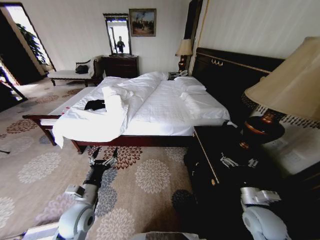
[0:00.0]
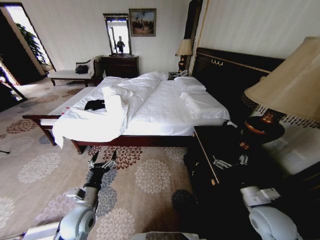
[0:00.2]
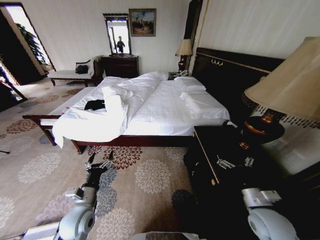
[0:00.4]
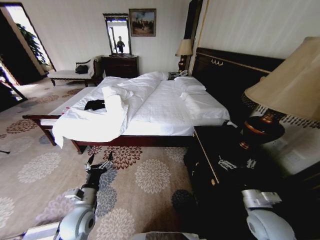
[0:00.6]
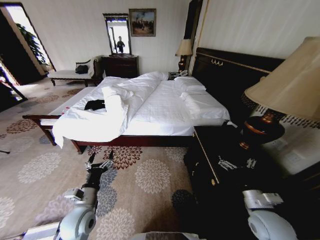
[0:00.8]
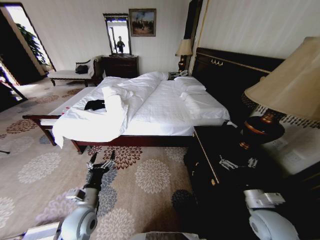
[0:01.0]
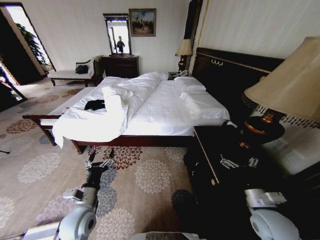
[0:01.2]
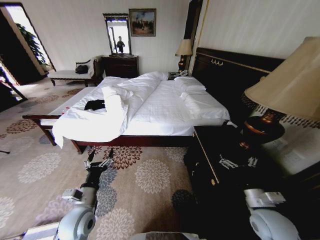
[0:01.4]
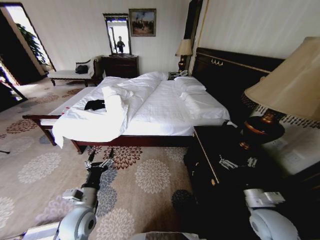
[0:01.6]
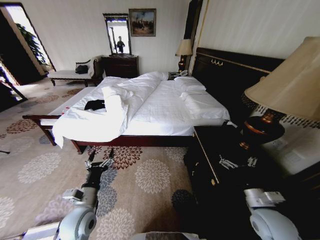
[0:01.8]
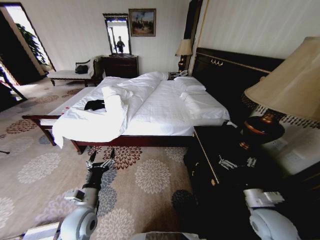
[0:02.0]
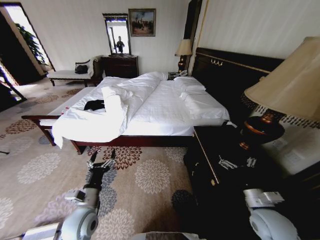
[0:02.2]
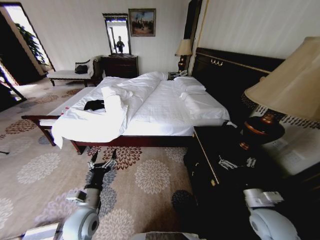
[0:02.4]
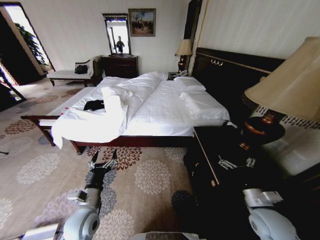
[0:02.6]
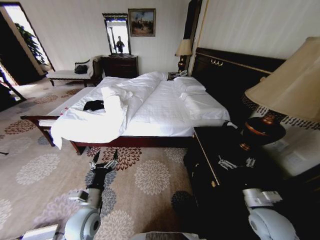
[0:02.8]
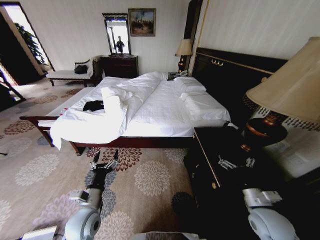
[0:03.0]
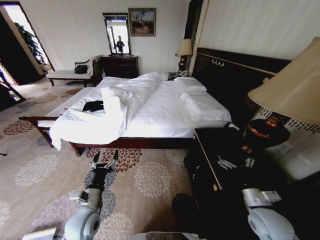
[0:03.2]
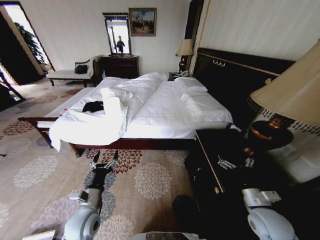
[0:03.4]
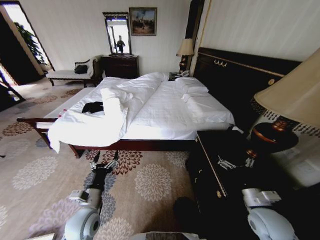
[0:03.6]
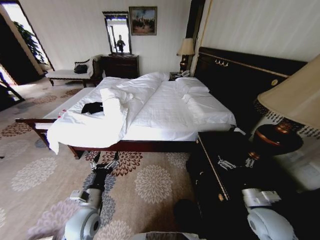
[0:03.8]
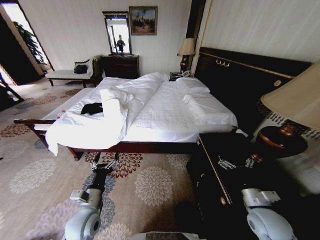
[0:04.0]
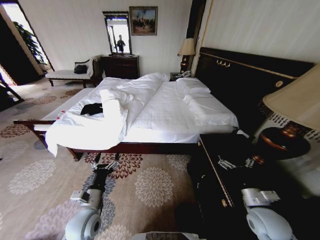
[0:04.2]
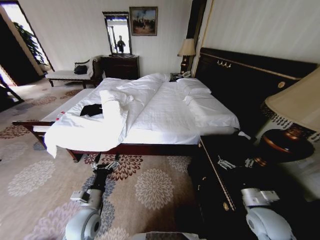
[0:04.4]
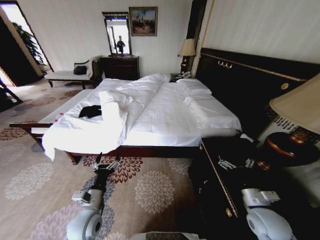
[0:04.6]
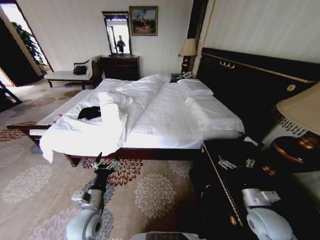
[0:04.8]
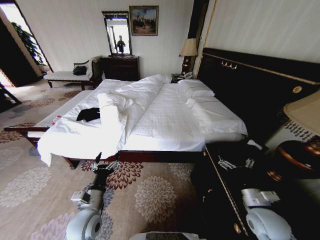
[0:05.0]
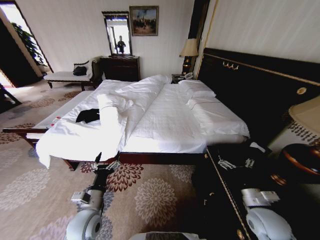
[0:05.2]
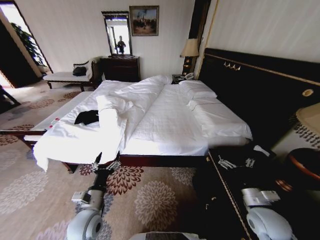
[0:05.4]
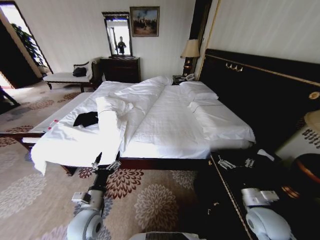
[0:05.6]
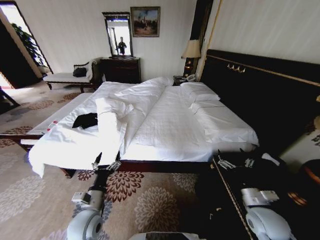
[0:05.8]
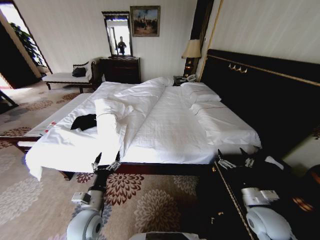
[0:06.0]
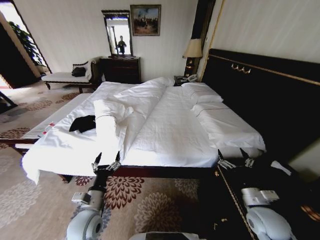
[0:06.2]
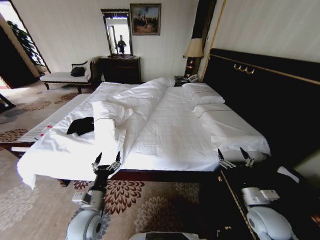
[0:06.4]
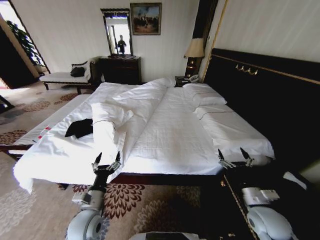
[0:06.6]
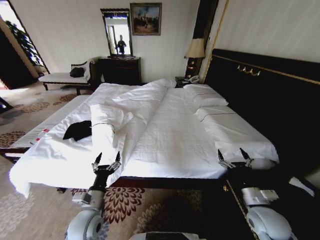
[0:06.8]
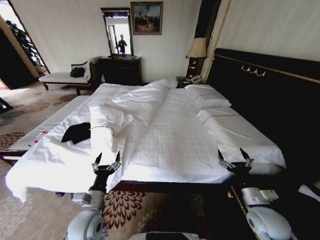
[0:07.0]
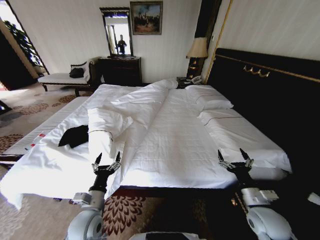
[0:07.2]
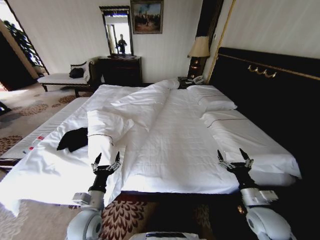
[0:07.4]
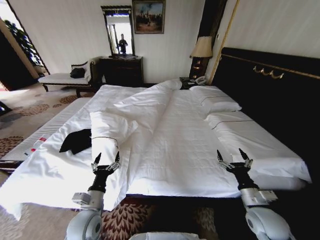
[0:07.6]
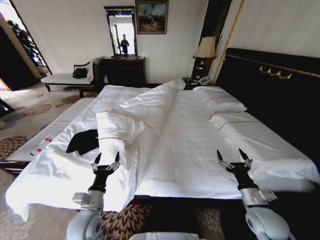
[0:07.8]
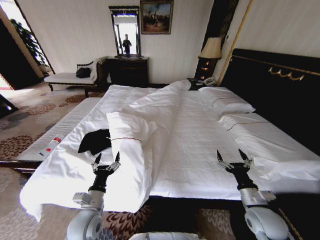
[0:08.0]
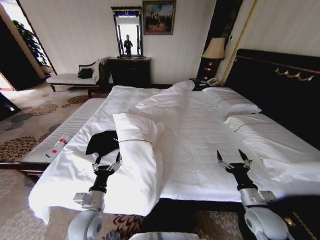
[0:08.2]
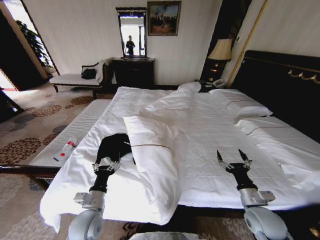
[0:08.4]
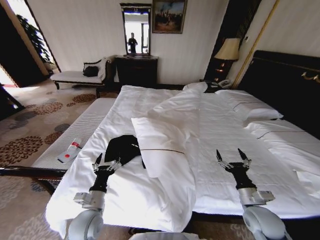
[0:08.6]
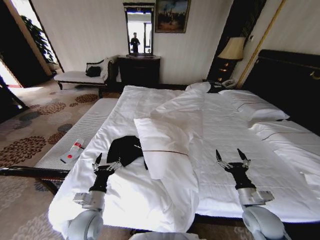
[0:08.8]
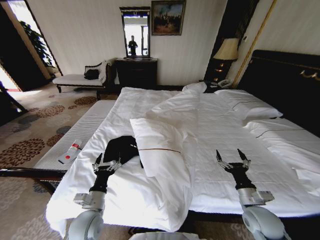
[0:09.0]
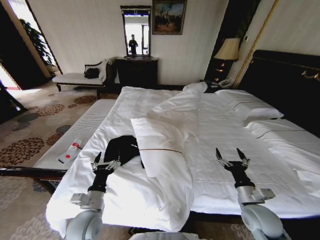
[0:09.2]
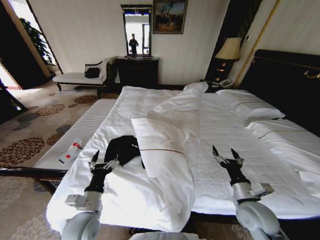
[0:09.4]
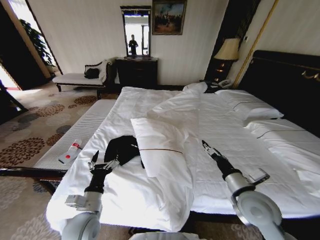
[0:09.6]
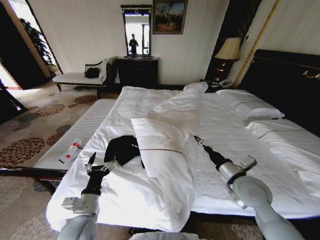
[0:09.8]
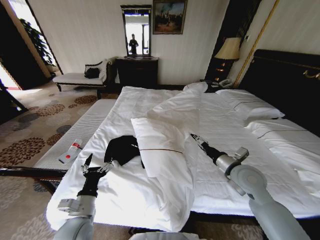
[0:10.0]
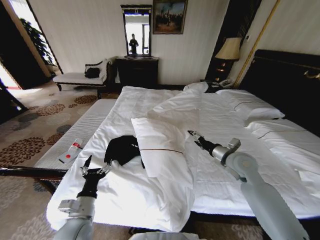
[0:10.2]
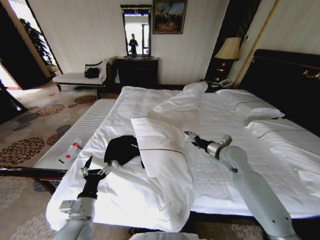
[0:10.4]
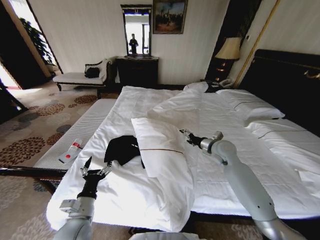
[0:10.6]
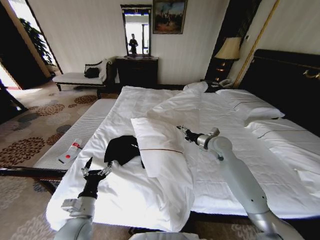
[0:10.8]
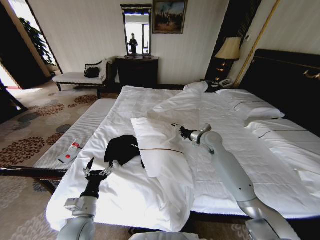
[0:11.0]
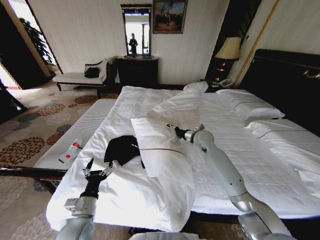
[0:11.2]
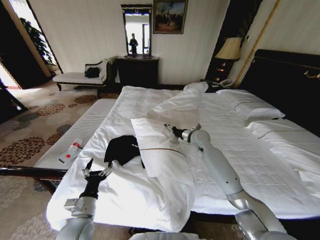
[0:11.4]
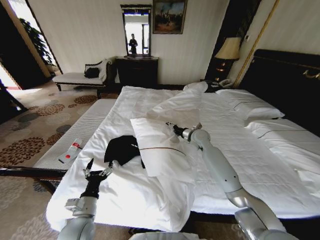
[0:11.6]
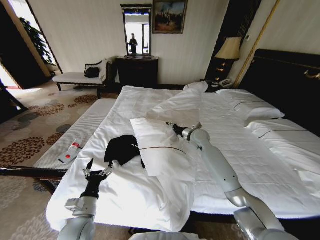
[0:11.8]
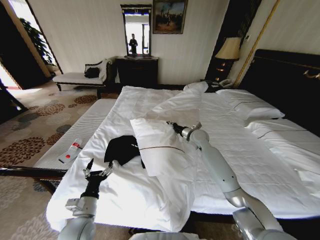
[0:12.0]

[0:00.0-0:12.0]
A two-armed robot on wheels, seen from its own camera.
Task of the whole recording: Fold the clothes on the bed.
0:01.6 to 0:03.0: There are only small adjustments of the grippers.
0:09.0 to 0:10.4: The right gripper goes some 25 cm forward and upward.
0:10.4 to 0:12.0: The right gripper goes approximately 15 cm forward and to the left, and closes its fingers.

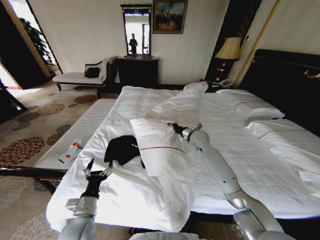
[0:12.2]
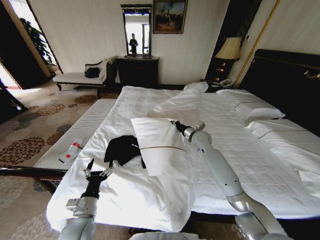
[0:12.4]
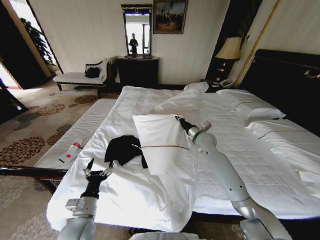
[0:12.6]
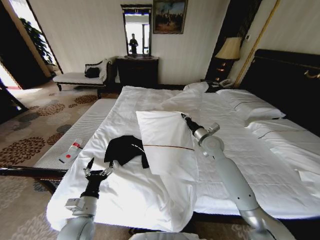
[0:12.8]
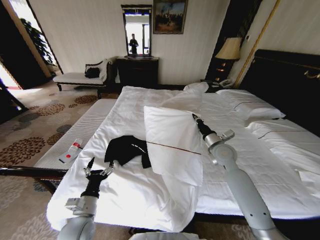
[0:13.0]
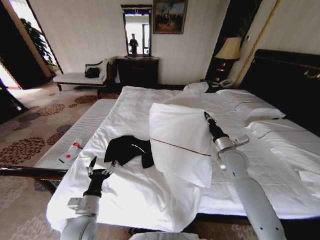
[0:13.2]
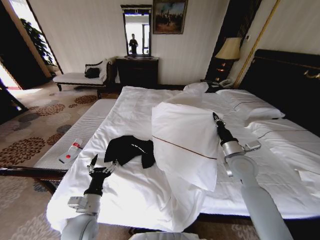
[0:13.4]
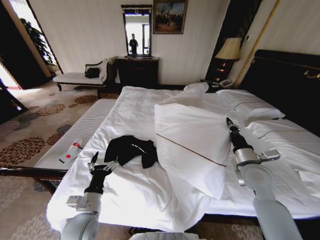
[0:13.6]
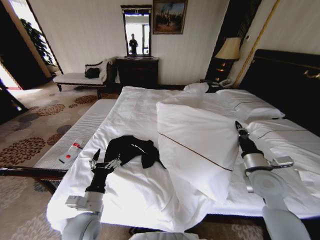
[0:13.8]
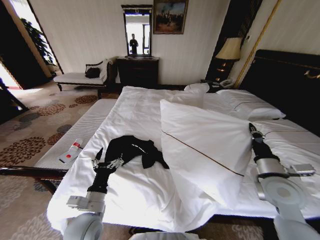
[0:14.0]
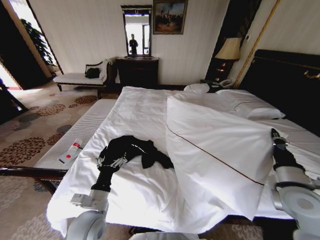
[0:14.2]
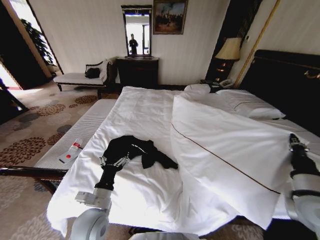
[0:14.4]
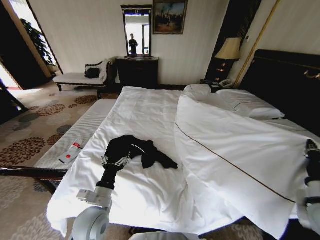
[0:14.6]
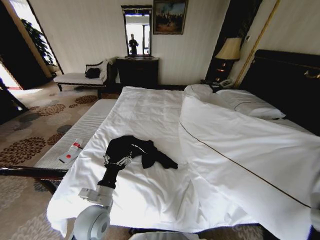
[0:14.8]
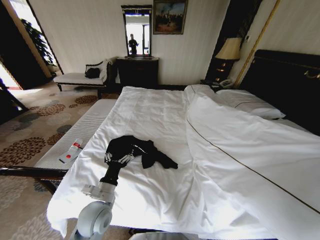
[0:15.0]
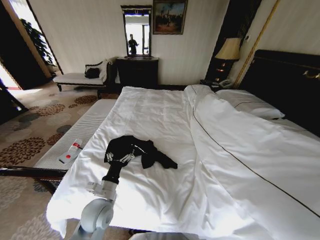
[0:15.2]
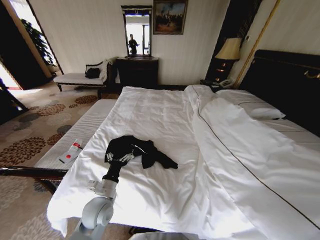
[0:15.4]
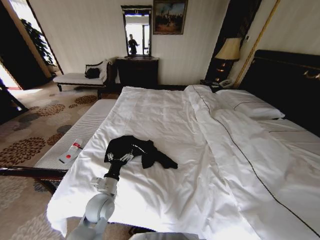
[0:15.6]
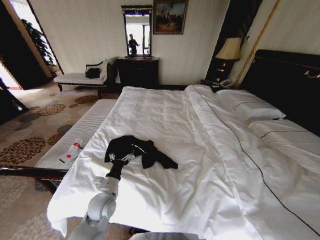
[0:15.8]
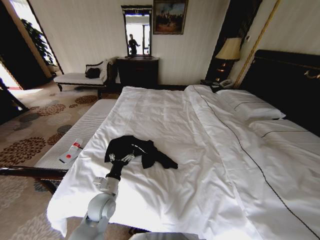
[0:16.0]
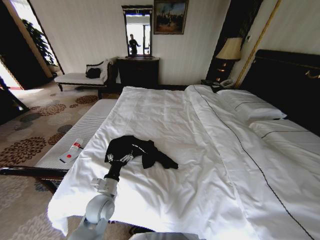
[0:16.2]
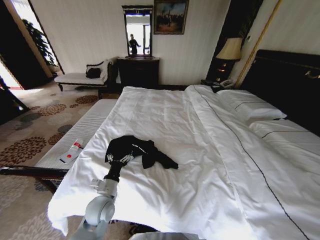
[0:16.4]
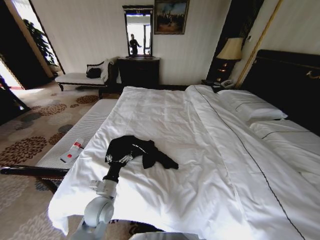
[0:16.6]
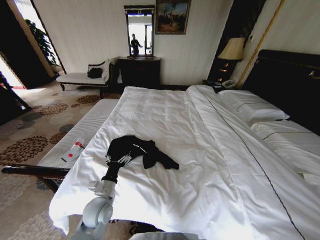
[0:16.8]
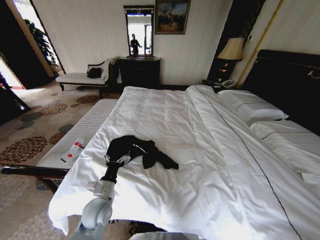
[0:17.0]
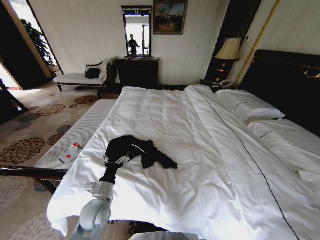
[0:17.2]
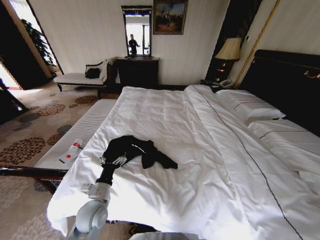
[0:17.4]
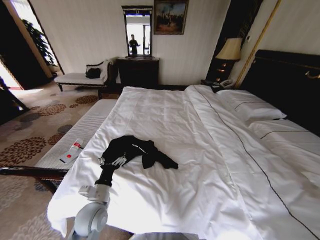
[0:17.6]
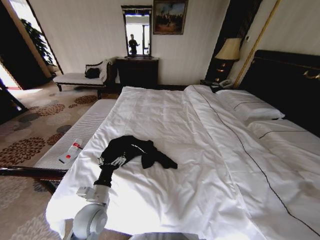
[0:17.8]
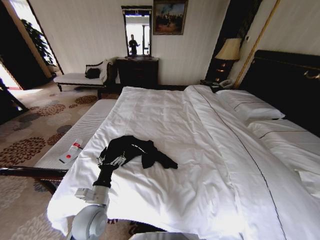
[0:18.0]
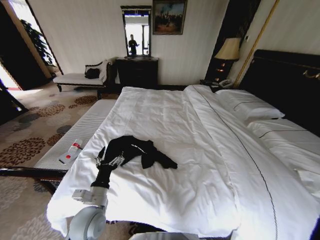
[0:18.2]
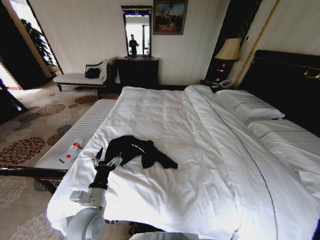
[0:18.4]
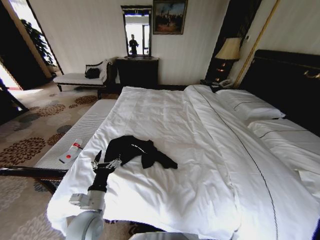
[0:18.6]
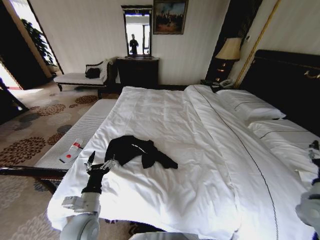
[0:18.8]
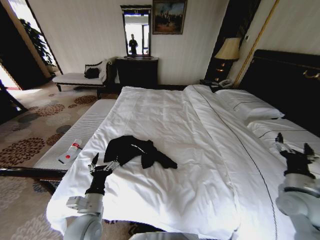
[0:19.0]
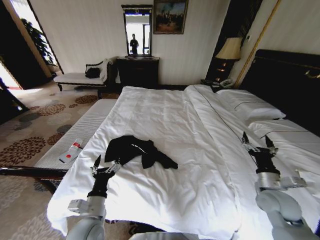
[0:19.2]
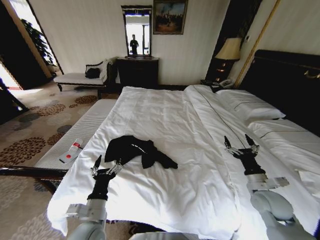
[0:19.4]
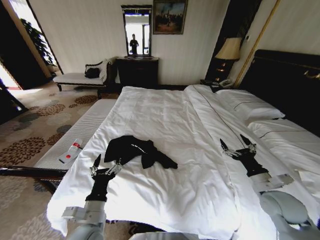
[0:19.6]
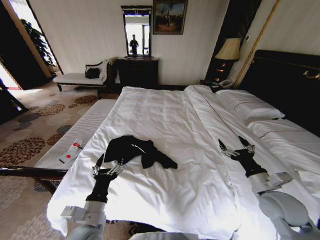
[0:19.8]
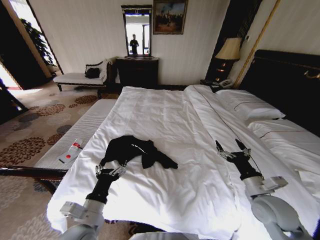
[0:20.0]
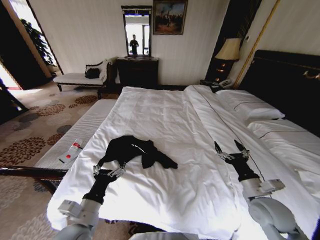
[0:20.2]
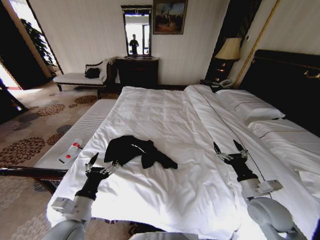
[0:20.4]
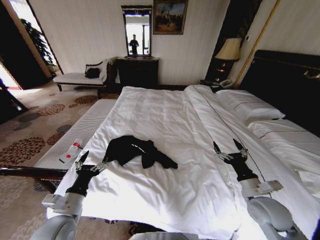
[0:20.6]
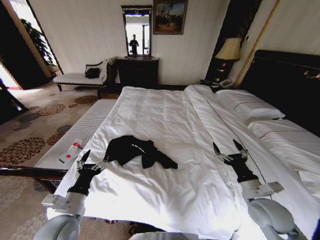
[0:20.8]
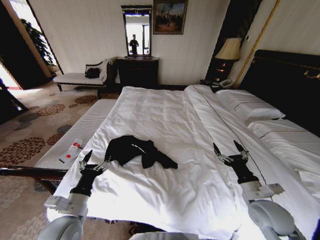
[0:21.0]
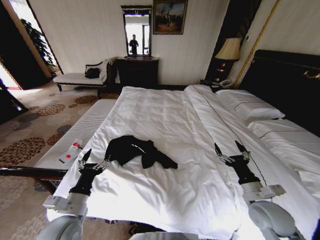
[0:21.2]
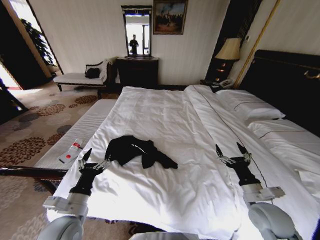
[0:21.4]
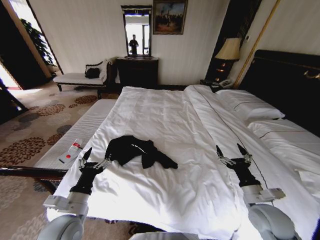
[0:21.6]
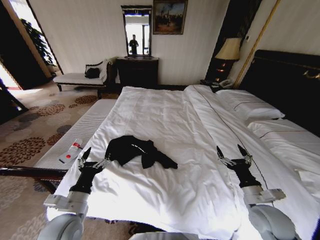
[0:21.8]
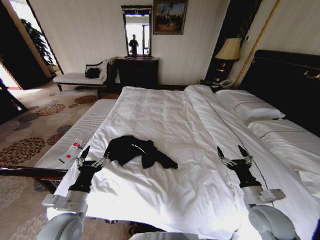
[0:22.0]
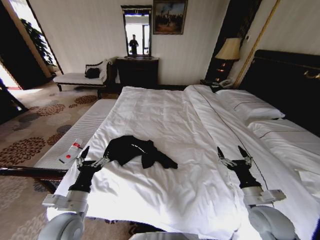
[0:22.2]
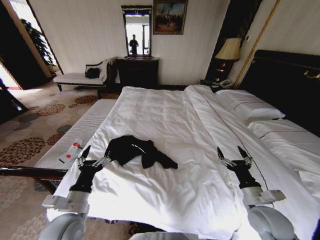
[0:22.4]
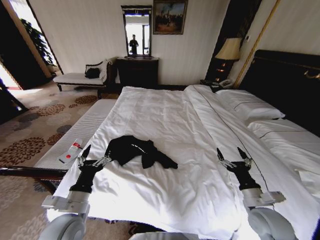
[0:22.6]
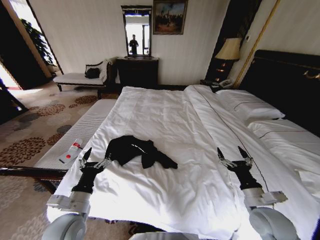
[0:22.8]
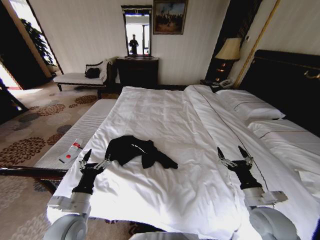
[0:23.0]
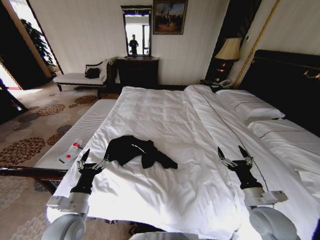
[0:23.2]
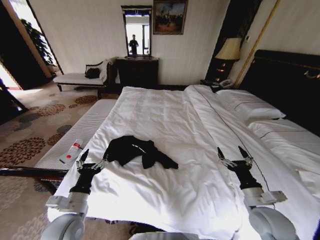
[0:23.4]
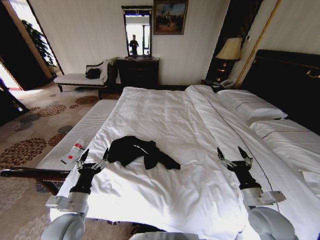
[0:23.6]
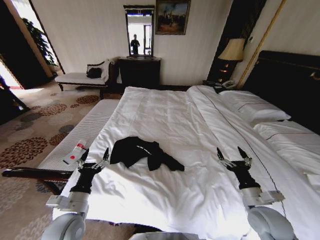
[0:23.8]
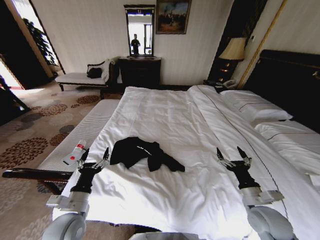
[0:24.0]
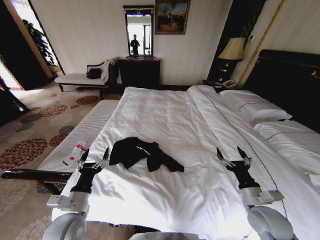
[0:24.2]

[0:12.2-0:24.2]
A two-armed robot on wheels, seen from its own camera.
Task of the whole recording: Fold the clothes on the bed.
0:12.2 to 0:13.8: The right gripper moves backward and to the right, approximately 25 cm, while the left gripper changes place by approximately 5 cm.
0:13.8 to 0:15.2: The left gripper moves approximately 5 cm; the right gripper travels backward and to the right by roughly 20 cm.
0:15.2 to 0:16.6: The right gripper travels downward, to the right and backward by approximately 25 cm.
0:16.6 to 0:18.2: The right gripper goes some 10 cm upward, and opens. The left gripper changes place by roughly 5 cm.
0:18.2 to 0:19.8: The left gripper shifts about 5 cm backward. The right gripper heads forward and to the left, covering about 25 cm.
0:19.8 to 0:21.2: The left gripper travels to the left by roughly 5 cm.
0:21.2 to 0:24.2: The grippers move only a little.
